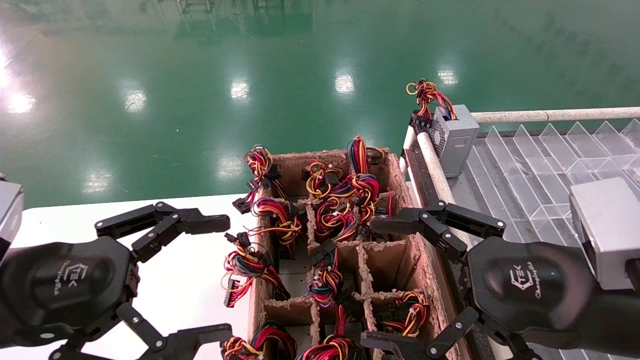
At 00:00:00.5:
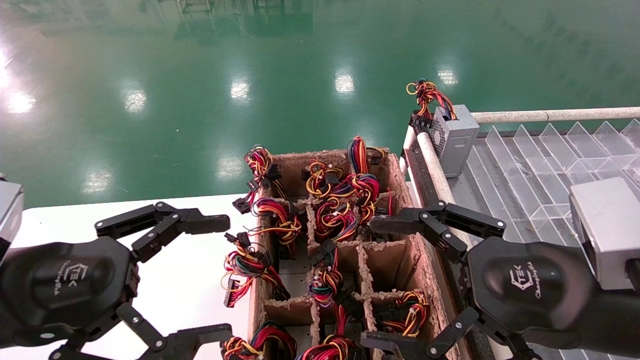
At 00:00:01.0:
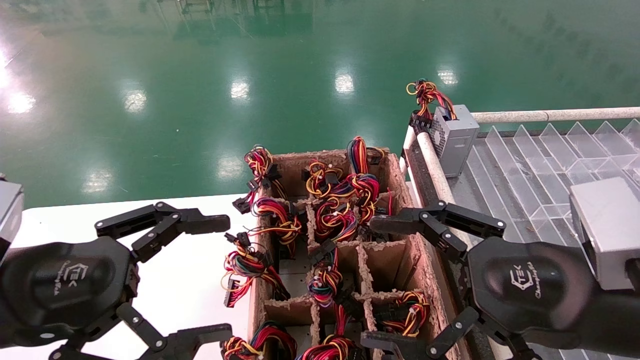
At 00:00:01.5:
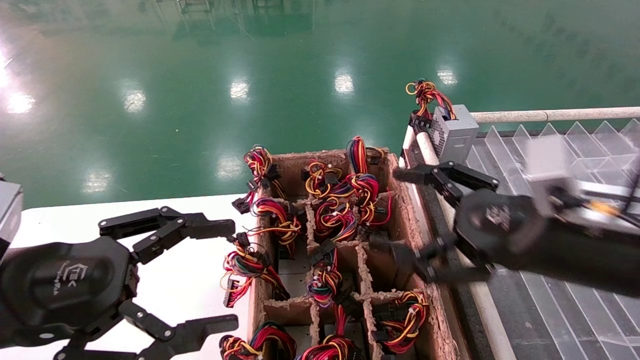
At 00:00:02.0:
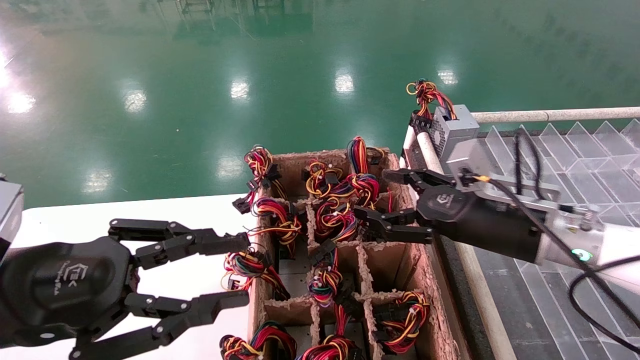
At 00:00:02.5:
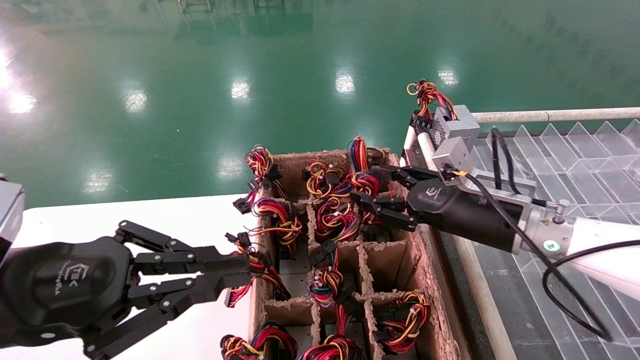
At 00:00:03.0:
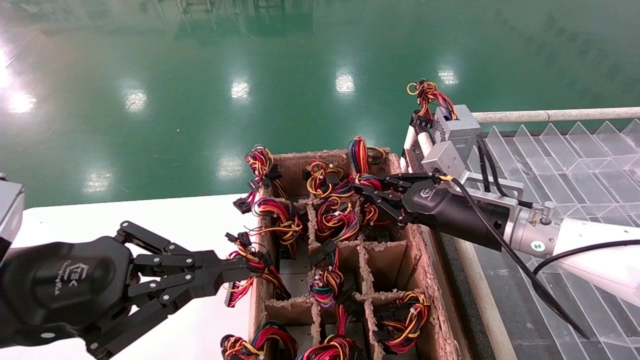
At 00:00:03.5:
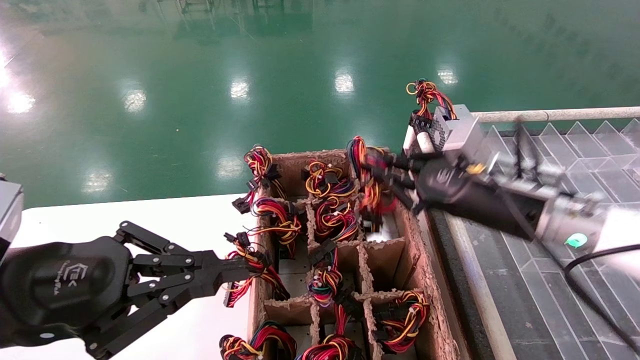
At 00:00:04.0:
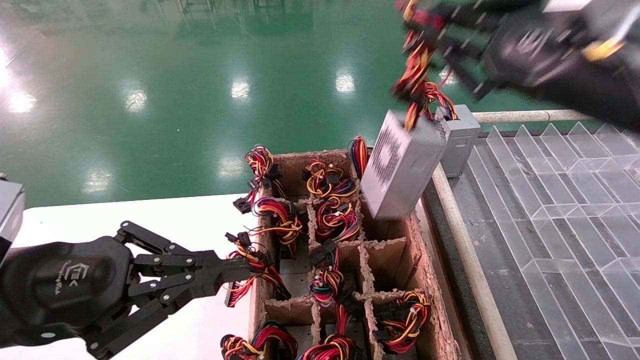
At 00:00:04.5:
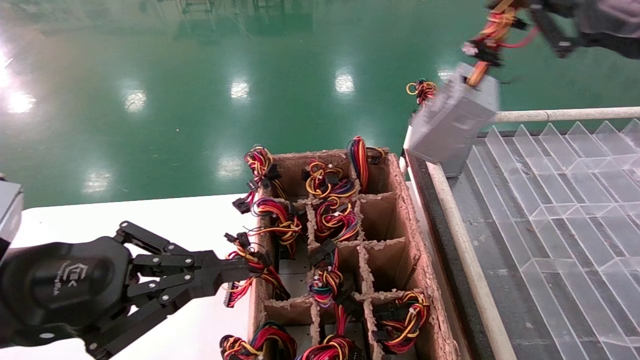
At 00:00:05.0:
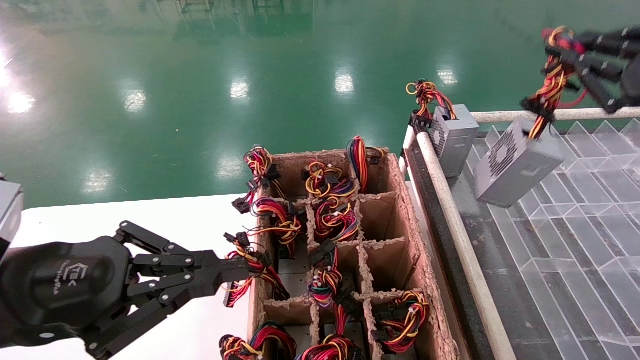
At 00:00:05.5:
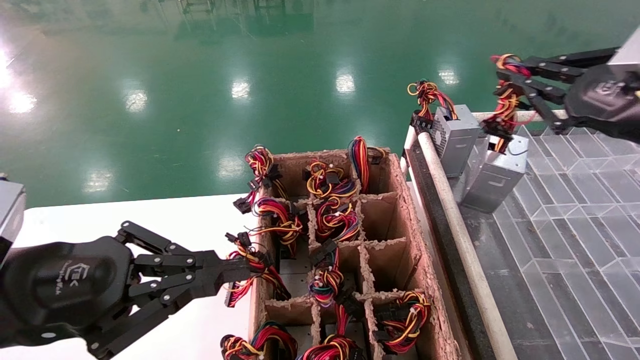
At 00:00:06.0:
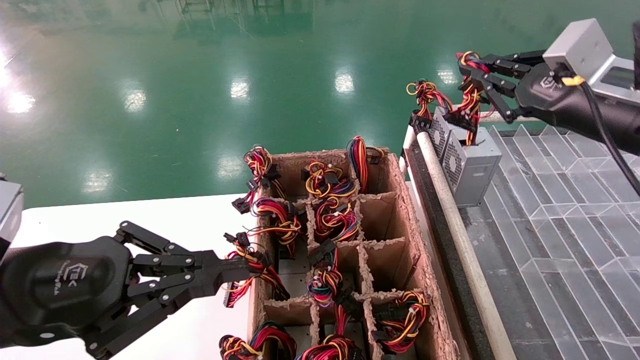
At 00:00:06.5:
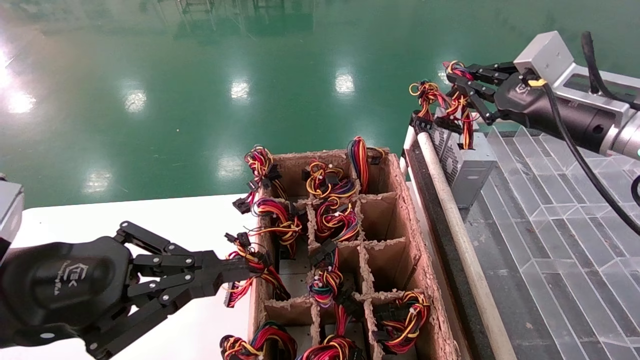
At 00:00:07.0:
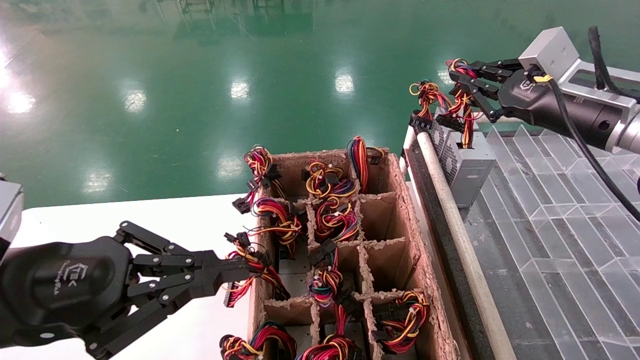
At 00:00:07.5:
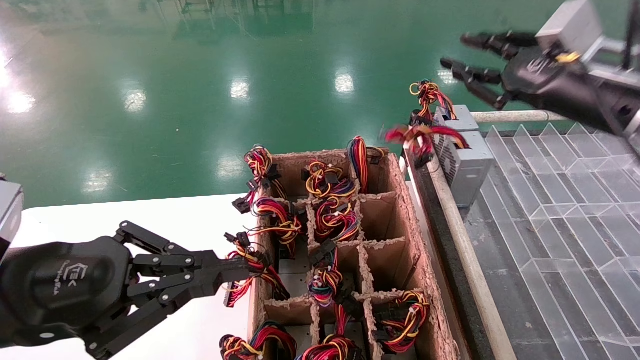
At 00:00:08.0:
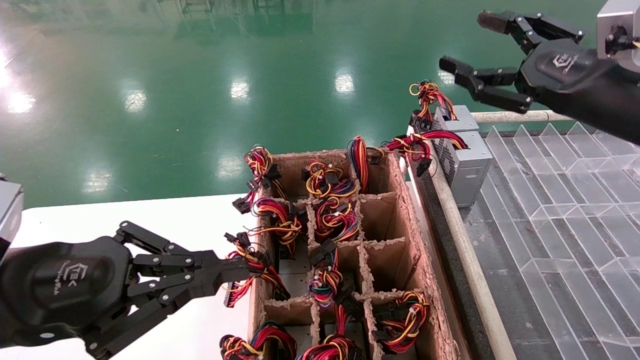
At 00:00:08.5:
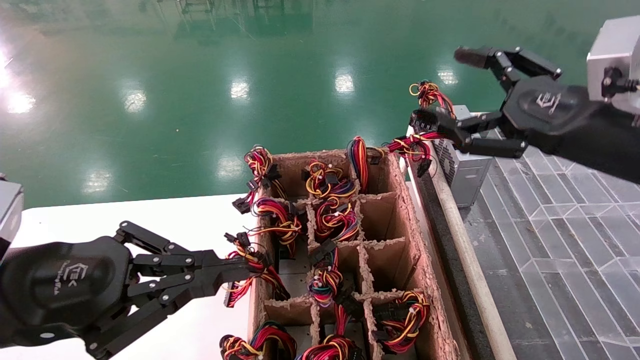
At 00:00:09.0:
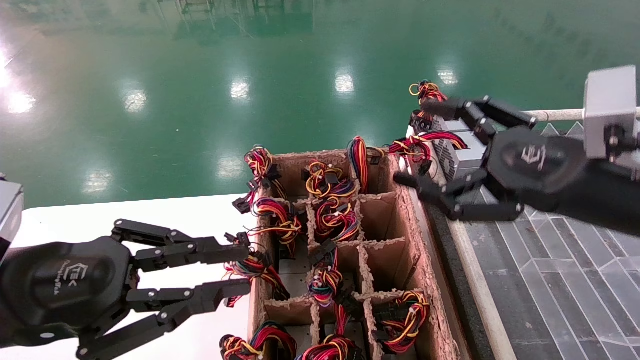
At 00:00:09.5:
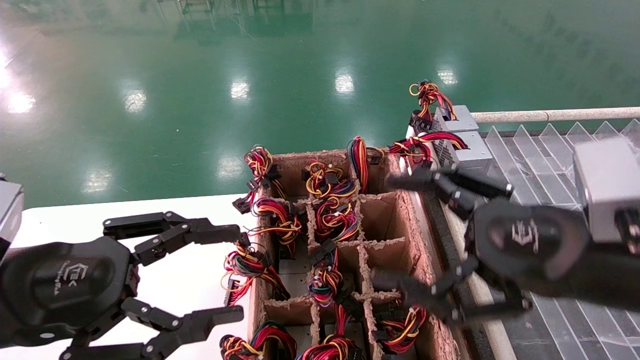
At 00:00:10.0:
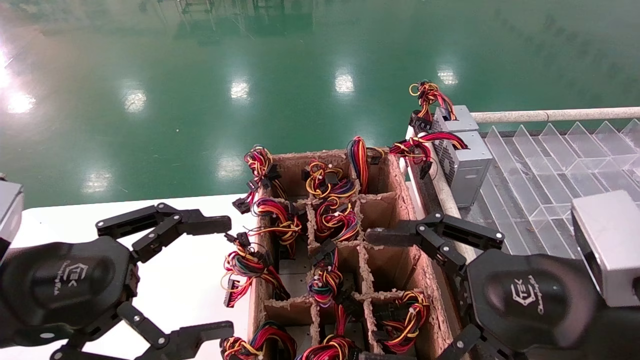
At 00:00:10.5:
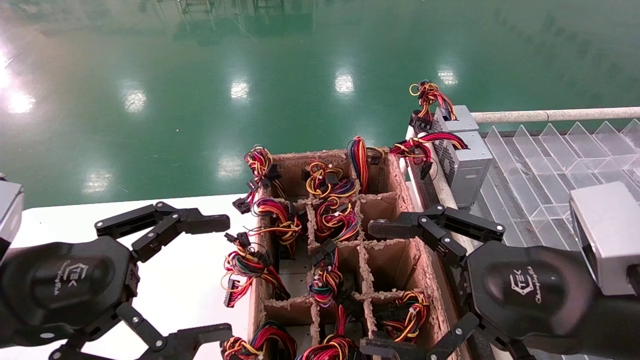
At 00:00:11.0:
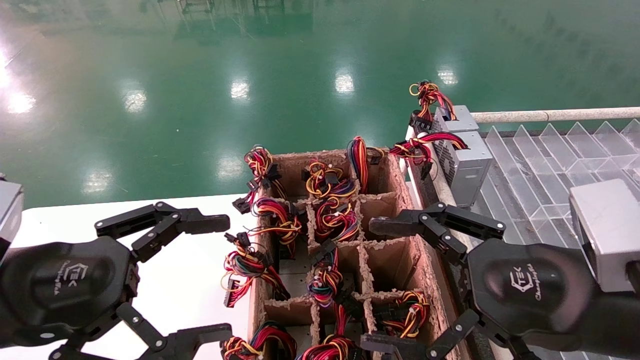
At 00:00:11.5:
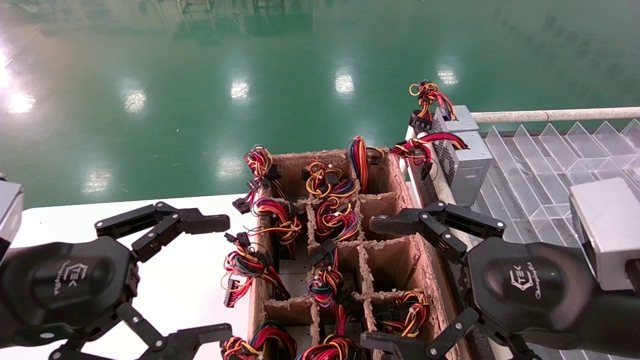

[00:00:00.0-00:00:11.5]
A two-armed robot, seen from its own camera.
Step, 00:00:01.5 to 00:00:03.0: Grab the main unit power supply from the containment box.
Step, 00:00:03.5 to 00:00:07.0: Place the main unit power supply in the designated area.
00:00:00.0 to 00:00:02.0: The right gripper heads forward, covering approximately 15 cm. The left gripper closes up.
00:00:02.0 to 00:00:04.0: The right gripper moves upward and backward, some 20 cm, and closes. The left gripper closes its fingers.
00:00:04.0 to 00:00:06.0: The right gripper heads to the right and forward, covering about 10 cm.
00:00:06.0 to 00:00:07.5: The grippers move only a little.
00:00:07.5 to 00:00:09.5: The right gripper goes about 20 cm backward, downward and to the left, and opens up, while the left gripper opens its fingers.
00:00:09.5 to 00:00:11.5: The left gripper opens its fingers.

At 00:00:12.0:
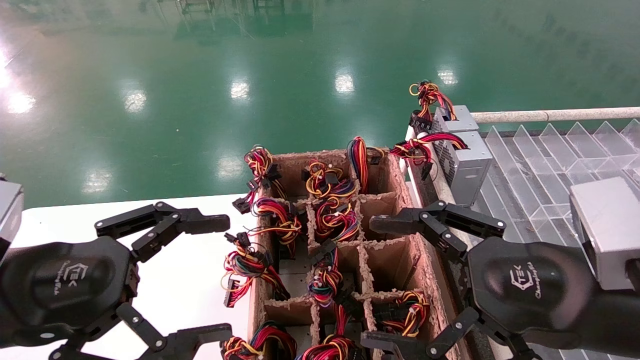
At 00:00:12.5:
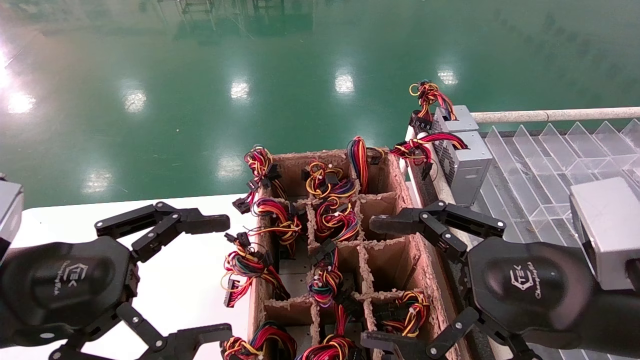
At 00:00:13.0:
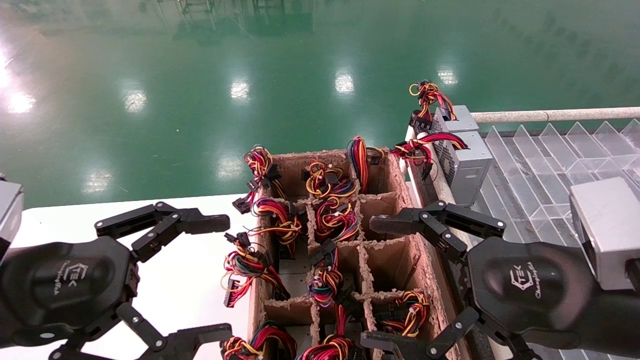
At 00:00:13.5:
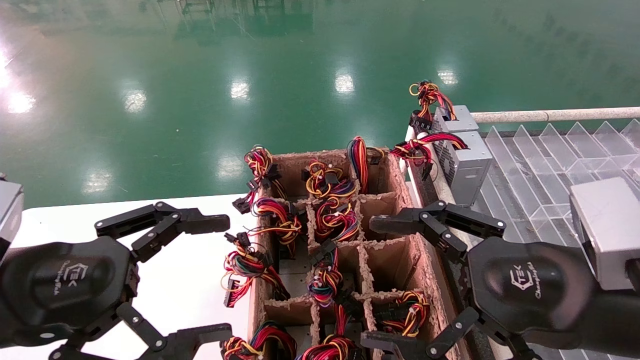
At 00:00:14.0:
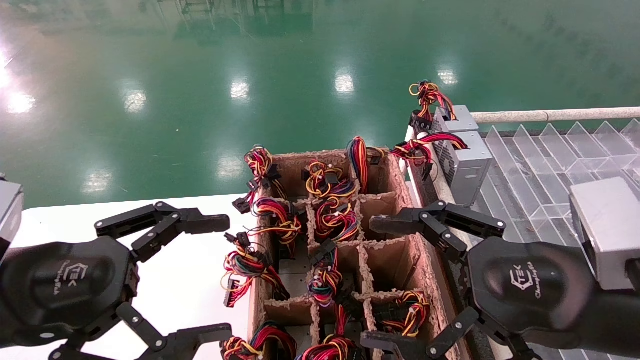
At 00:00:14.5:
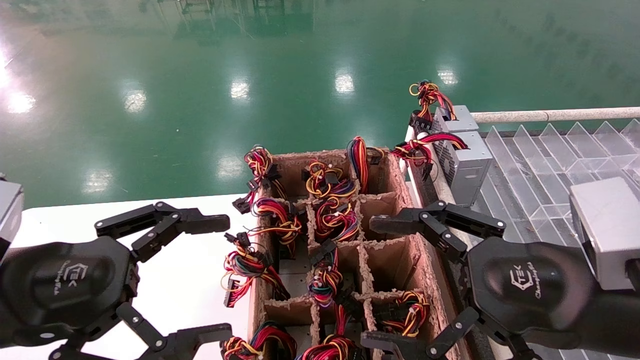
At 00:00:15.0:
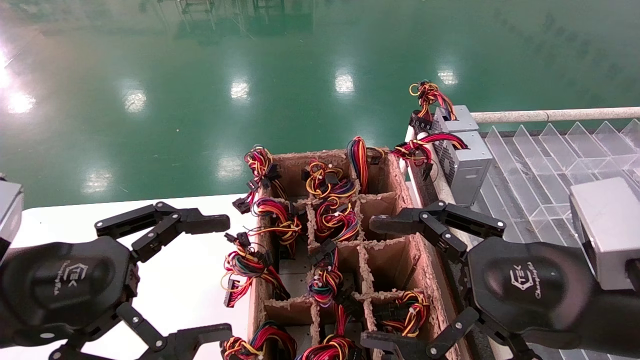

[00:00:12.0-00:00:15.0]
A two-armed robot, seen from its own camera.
00:00:12.0 to 00:00:15.0: Both grippers stay put.
